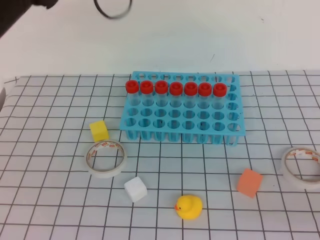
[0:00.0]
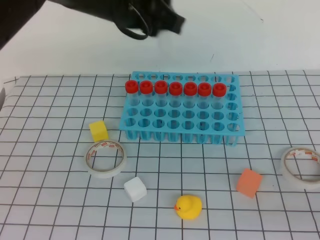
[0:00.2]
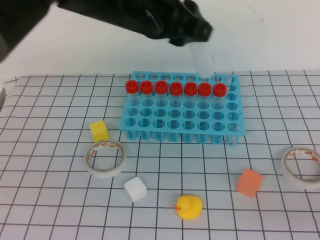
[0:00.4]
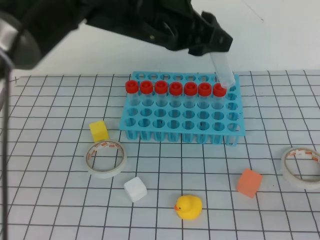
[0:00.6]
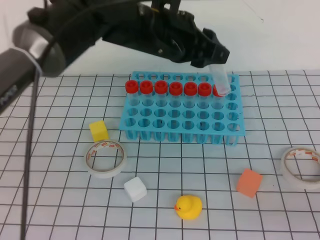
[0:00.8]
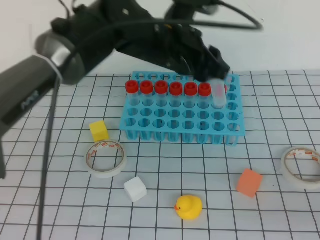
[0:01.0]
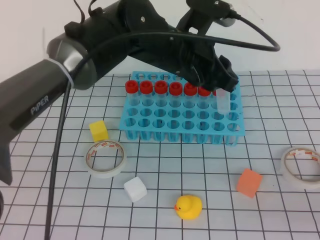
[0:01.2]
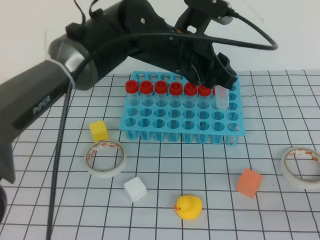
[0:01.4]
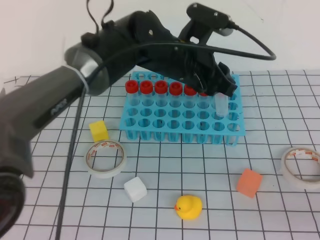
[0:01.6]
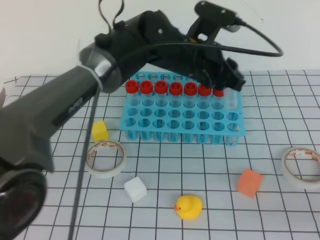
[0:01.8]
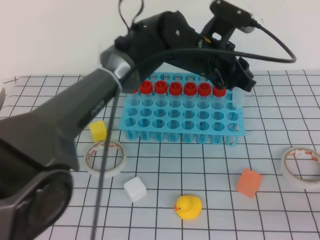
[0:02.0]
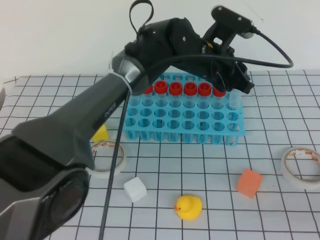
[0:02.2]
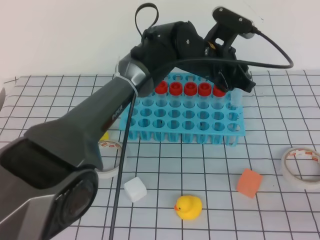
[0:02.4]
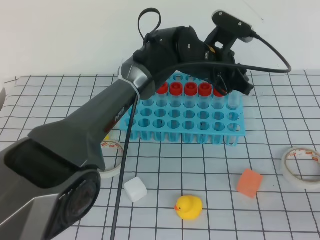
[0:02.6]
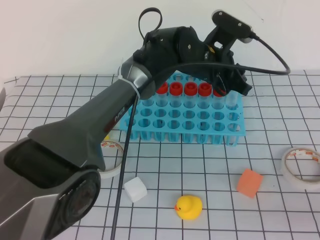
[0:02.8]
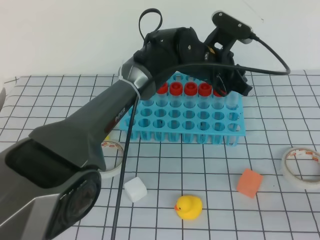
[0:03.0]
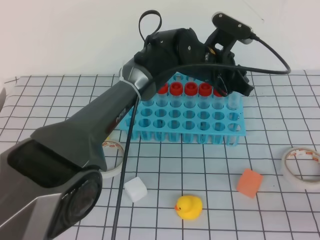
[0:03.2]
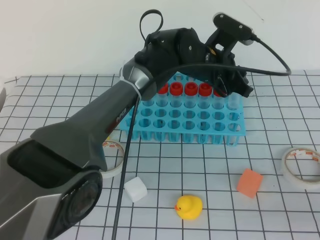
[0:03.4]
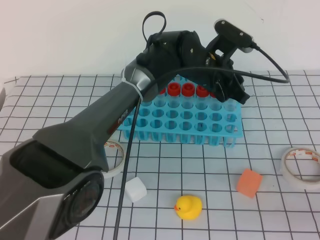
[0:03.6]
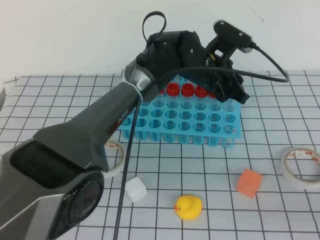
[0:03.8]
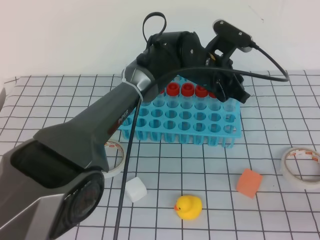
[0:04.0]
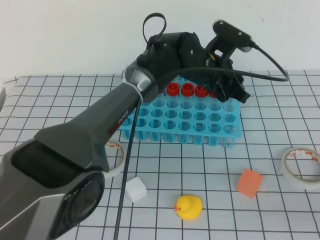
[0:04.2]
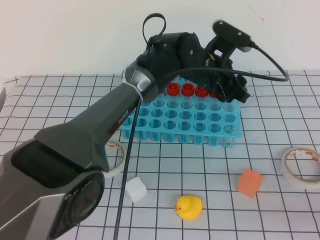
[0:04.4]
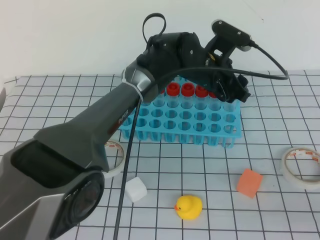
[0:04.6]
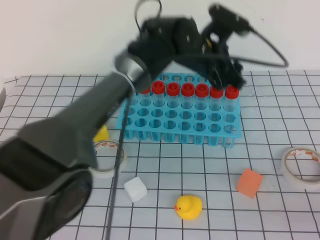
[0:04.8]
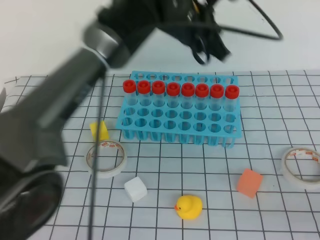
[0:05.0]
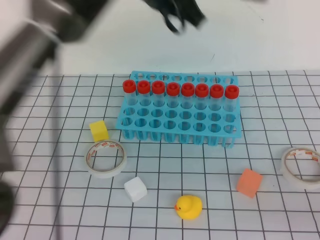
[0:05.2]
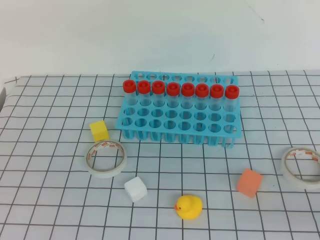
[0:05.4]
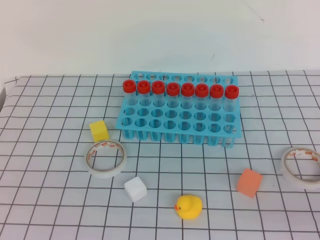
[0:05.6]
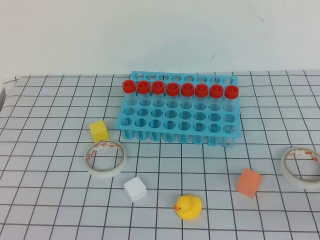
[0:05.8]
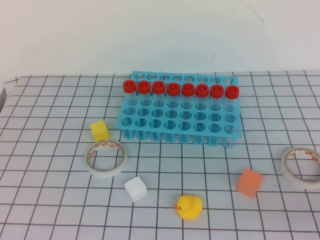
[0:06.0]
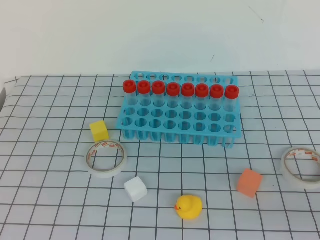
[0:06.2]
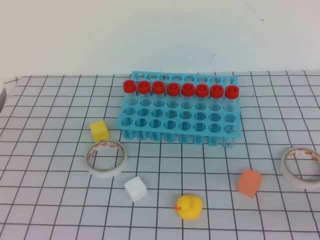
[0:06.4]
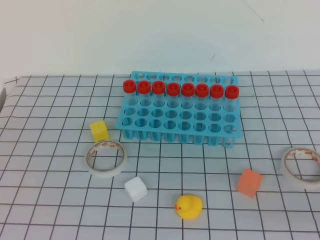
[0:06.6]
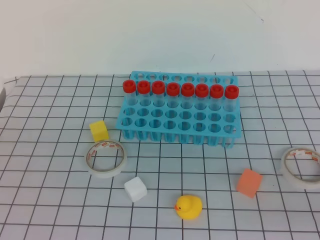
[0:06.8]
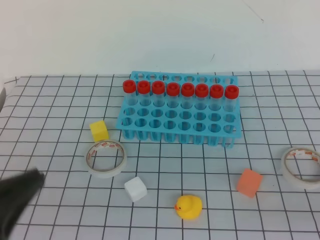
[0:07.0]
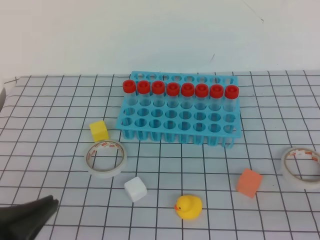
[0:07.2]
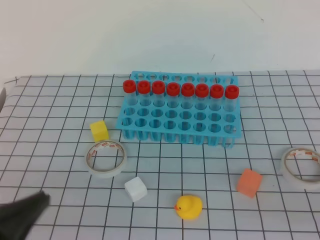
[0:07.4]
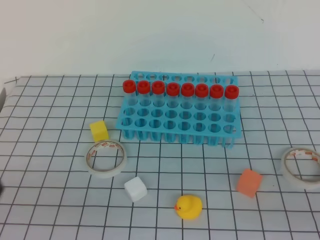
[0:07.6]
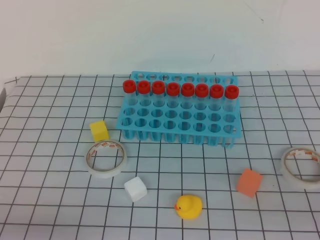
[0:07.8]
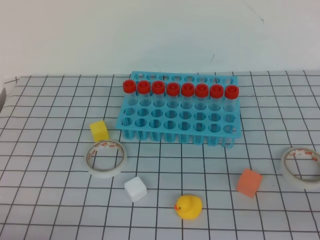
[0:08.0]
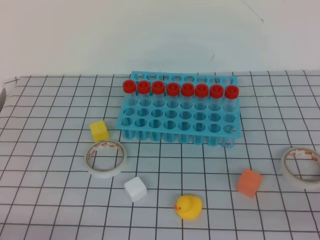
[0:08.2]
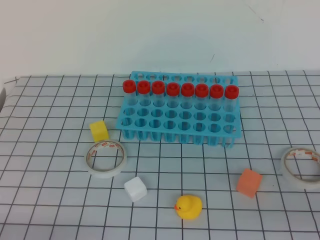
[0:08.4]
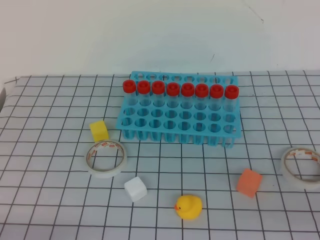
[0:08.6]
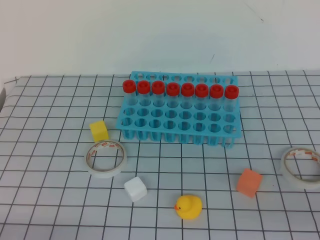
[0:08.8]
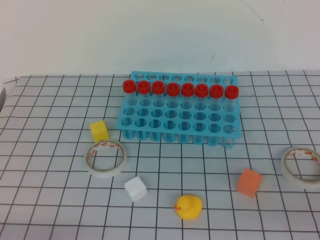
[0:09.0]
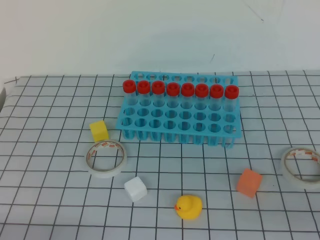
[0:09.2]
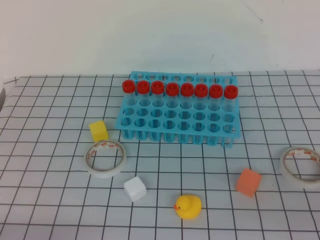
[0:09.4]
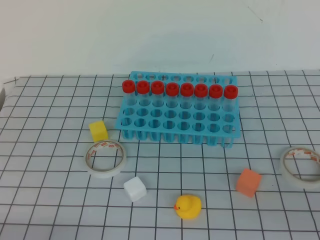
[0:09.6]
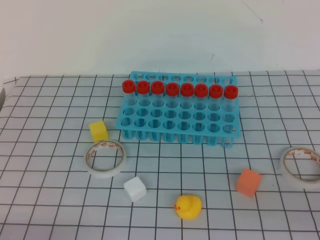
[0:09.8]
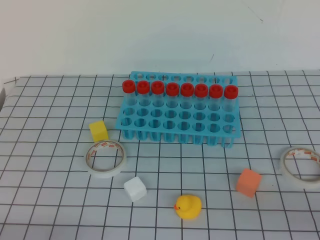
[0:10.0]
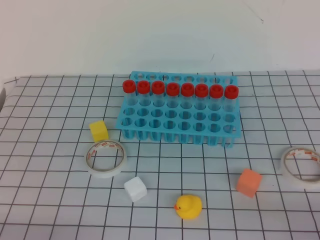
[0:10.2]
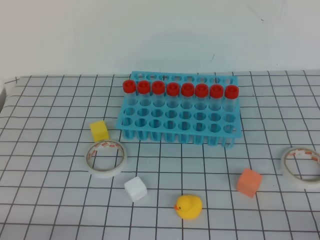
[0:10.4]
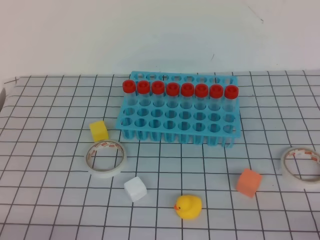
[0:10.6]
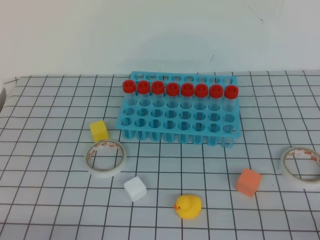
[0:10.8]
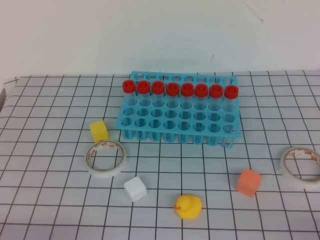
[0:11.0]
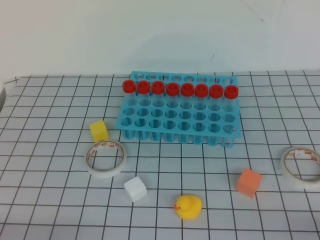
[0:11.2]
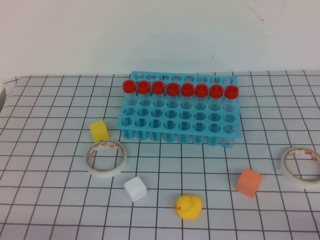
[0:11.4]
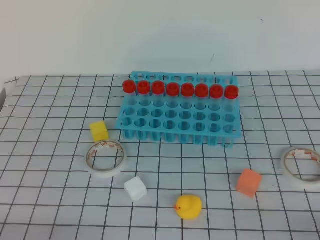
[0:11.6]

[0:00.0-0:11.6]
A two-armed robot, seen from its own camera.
0:00.0 to 0:01.4: The left gripper travels downward and to the right by roughly 15 cm.
0:01.4 to 0:02.8: The left gripper travels forward, downward and to the right by approximately 10 cm.
0:02.8 to 0:04.4: Both grippers stay put.
0:04.4 to 0:05.8: The left gripper shifts approximately 50 cm upward, backward and to the left, and closes.
0:05.8 to 0:07.2: The left gripper is displaced downward by about 30 cm.
0:07.2 to 0:08.8: The left gripper moves downward, roughly 15 cm.
